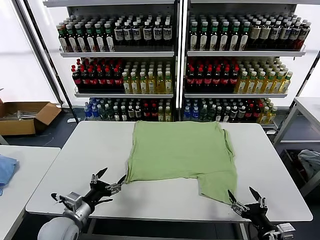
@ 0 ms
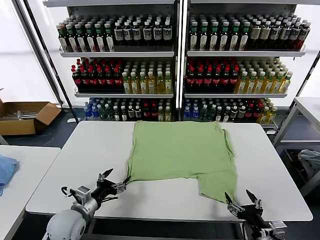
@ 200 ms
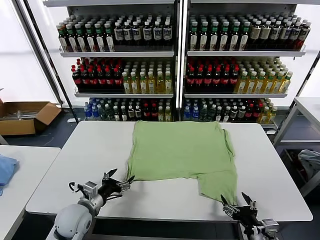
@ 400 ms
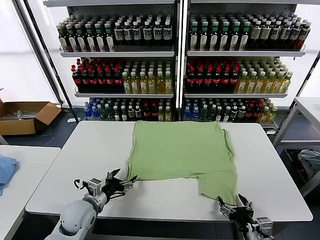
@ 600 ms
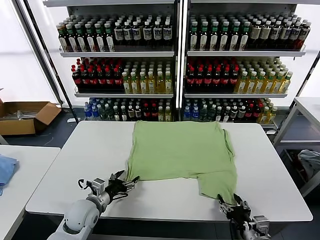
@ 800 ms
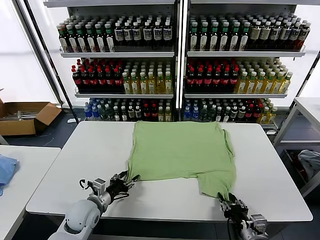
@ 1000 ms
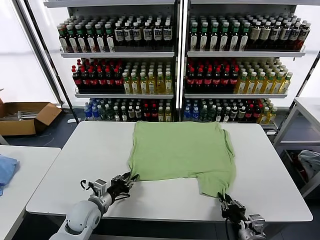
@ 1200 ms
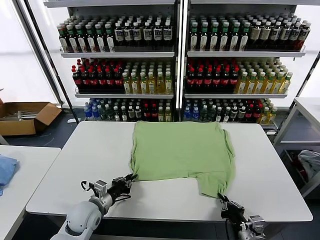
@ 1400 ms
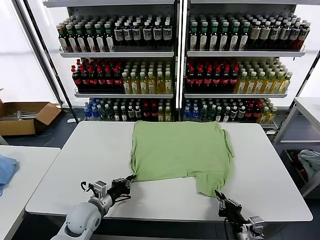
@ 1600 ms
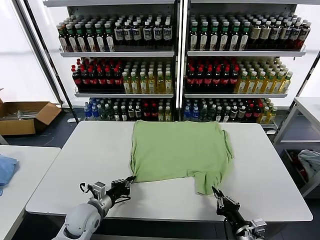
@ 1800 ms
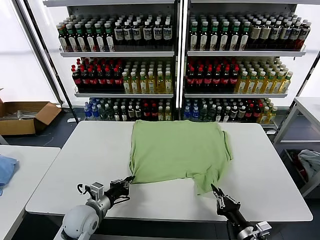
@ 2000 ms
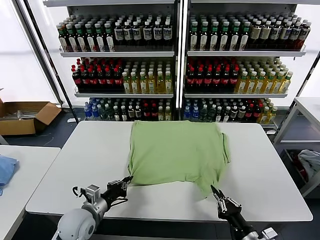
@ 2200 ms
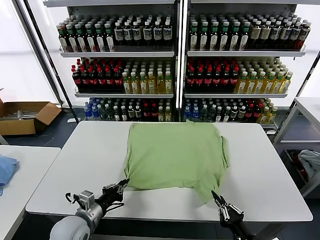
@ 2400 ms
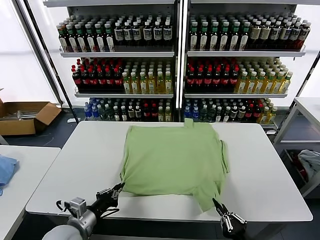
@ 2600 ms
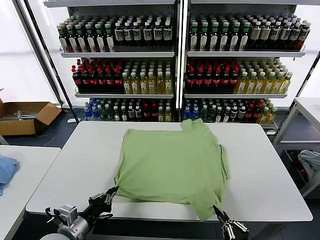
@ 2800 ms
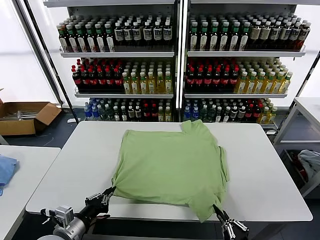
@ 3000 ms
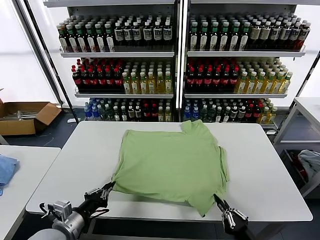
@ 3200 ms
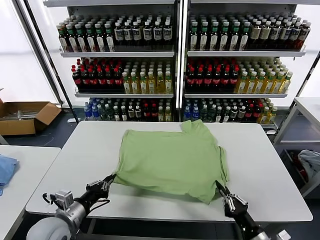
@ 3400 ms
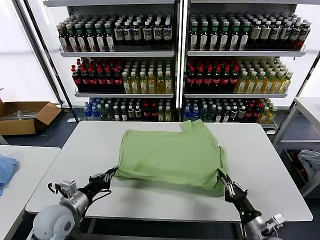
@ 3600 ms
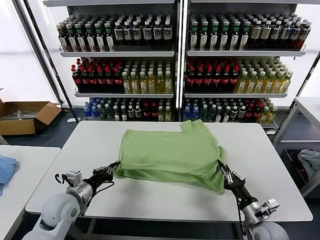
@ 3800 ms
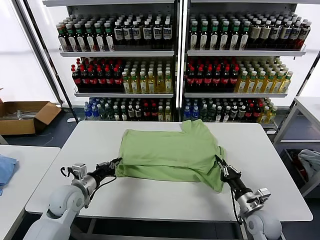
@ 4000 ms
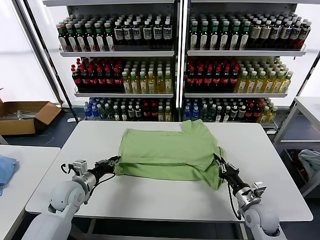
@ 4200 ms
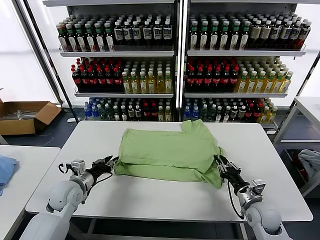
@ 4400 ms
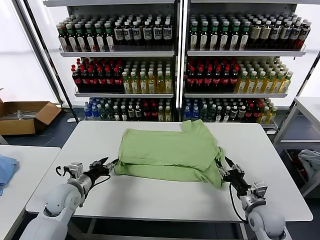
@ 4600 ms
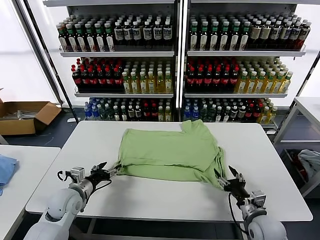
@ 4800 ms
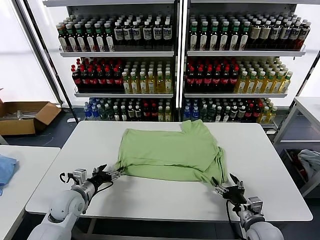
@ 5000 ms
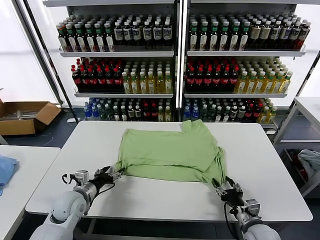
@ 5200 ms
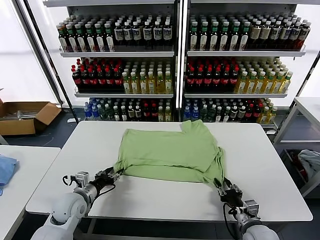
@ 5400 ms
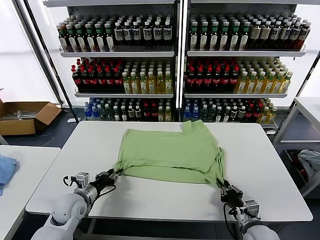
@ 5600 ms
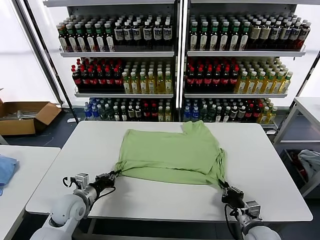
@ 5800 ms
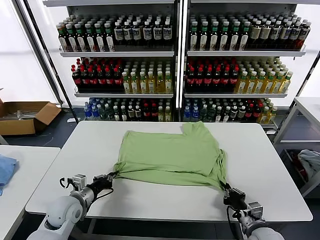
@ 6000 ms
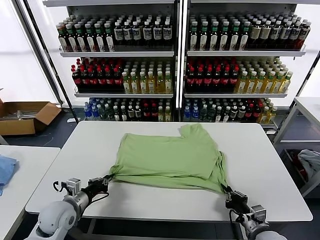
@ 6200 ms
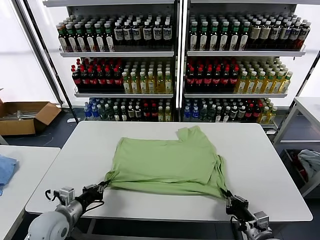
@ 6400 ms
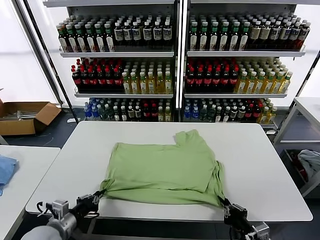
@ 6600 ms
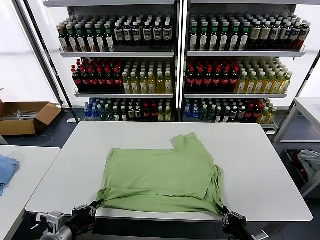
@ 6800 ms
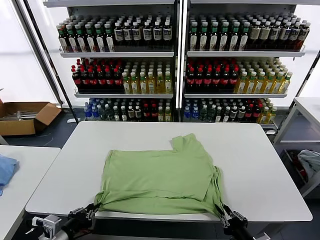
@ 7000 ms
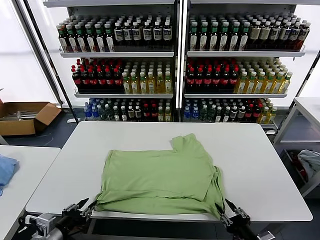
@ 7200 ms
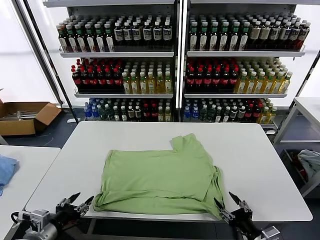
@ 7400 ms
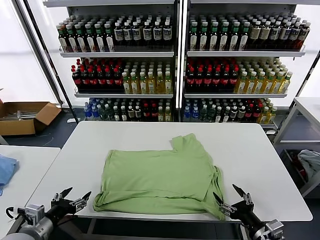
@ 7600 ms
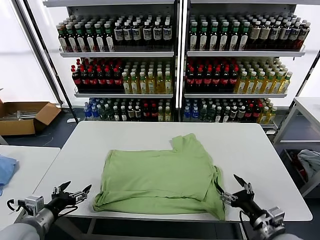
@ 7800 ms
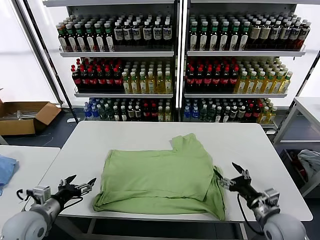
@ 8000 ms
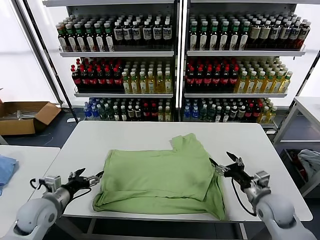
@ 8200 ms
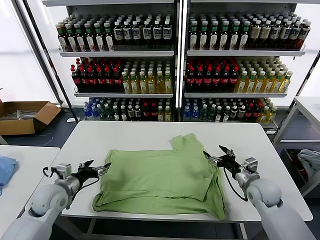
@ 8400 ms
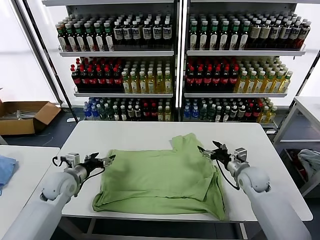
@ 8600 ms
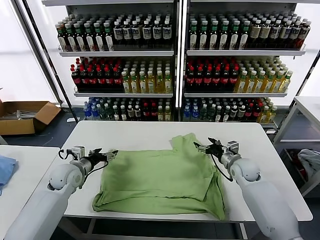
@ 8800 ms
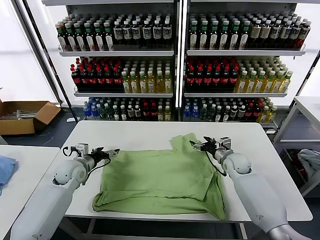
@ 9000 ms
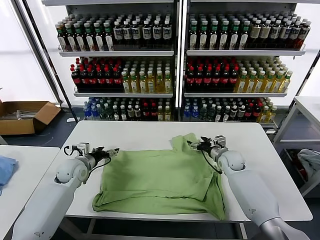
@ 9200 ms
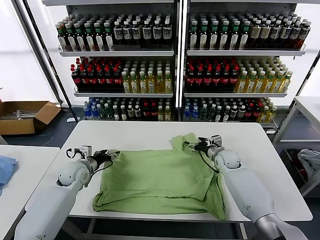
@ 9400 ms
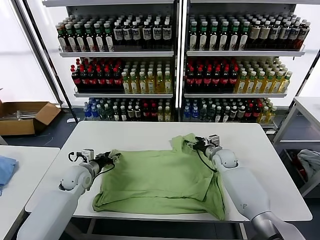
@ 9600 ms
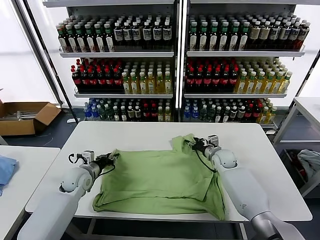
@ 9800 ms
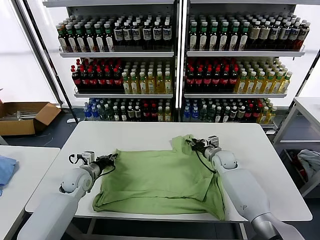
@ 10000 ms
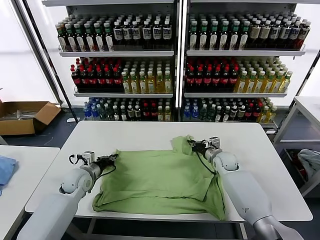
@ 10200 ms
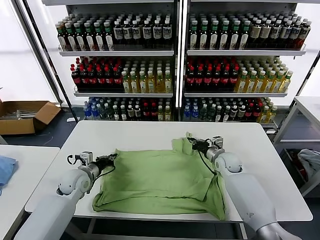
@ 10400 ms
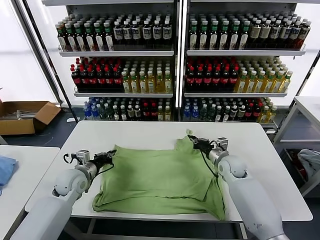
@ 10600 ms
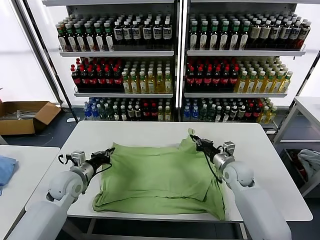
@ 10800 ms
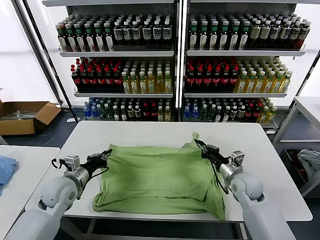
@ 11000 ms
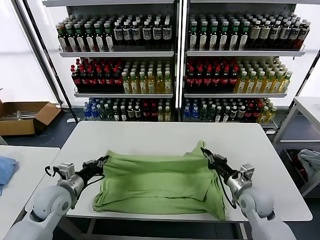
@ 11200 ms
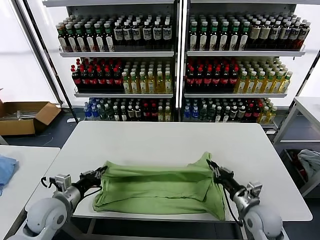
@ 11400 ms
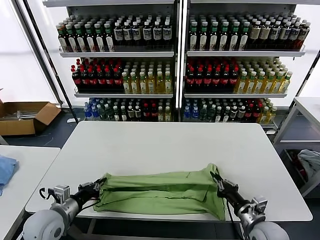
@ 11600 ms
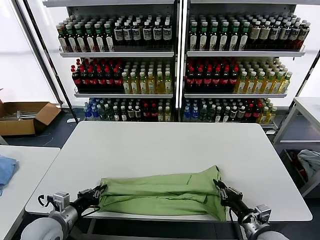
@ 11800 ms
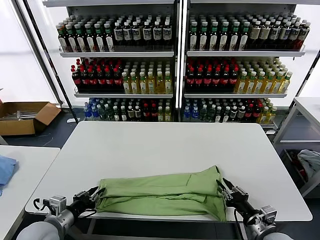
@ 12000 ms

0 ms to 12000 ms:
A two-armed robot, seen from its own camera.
Task of the whole recording: fold and organize the clothes.
Step, 0 ms to 1600 ms: use both grippers simultaneously to clamp the lower edge of the clothing fabric.
Step, 1800 ms to 4600 ms: use both grippers to drag the lower edge of the fabric forward and fold it over the upper edge.
Step, 4800 ms to 7200 ms: Drag the clothes downward with both gripper.
Step, 7400 ms to 10200 ms: use both grippers simultaneously to clamp the upper edge of the clothing fabric.
Step, 10400 ms to 12000 ms: use both grippers to drag the upper edge of the fabric backward and fold it over the lower edge.
1600 ms to 3000 ms: The left gripper travels backward and upward by some 15 cm; the right gripper is displaced backward by about 10 cm.
3000 ms to 4400 ms: The two grippers go approximately 20 cm forward. The right gripper opens.
4400 ms to 6000 ms: The right gripper is displaced backward by approximately 5 cm, and closes up; the left gripper opens and closes again.
6000 ms to 7600 ms: The left gripper goes some 15 cm backward and upward, and opens its fingers, while the right gripper goes roughly 5 cm upward, and opens up.
7600 ms to 9000 ms: The grippers both shift forward by approximately 30 cm.
9000 ms to 10400 ms: The left gripper closes its fingers. The right gripper closes.
10400 ms to 12000 ms: The right gripper moves backward, about 30 cm, and opens, while the left gripper heads backward, covering about 20 cm.

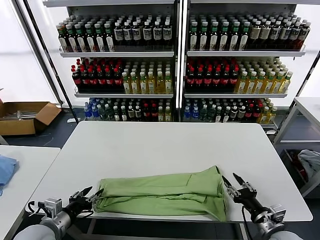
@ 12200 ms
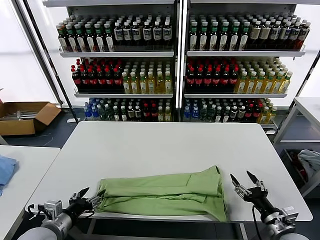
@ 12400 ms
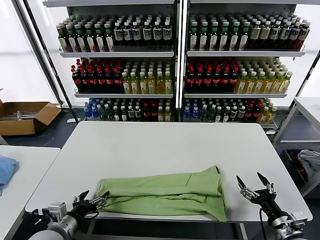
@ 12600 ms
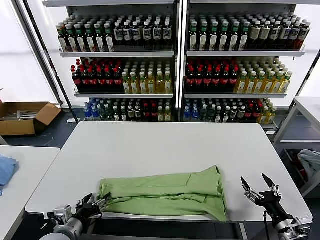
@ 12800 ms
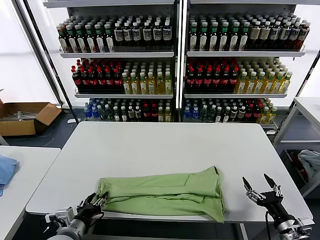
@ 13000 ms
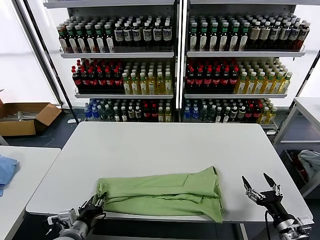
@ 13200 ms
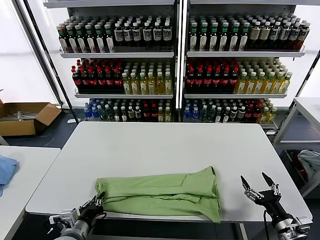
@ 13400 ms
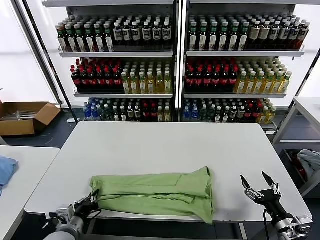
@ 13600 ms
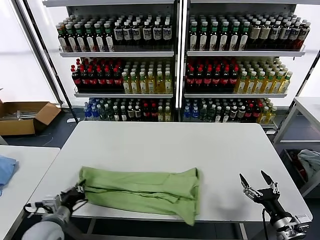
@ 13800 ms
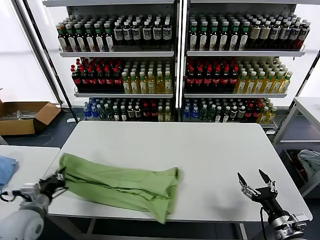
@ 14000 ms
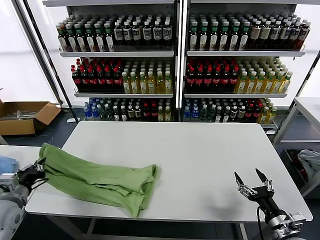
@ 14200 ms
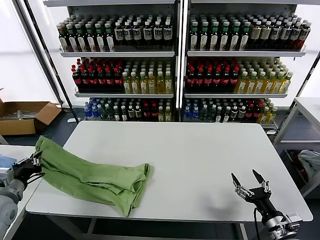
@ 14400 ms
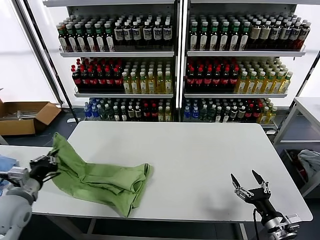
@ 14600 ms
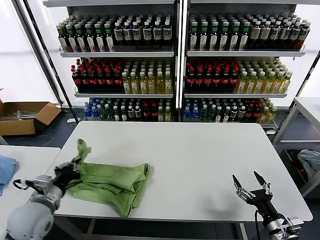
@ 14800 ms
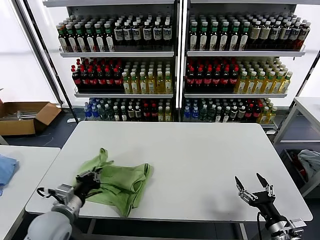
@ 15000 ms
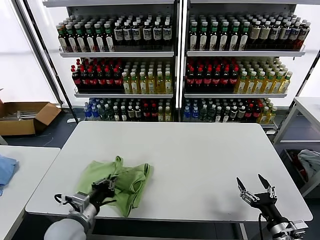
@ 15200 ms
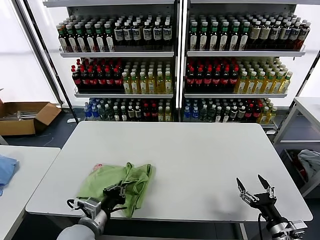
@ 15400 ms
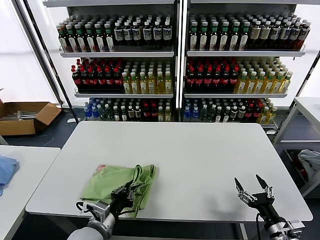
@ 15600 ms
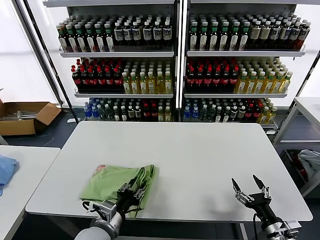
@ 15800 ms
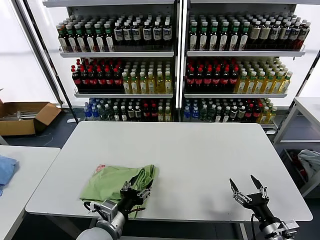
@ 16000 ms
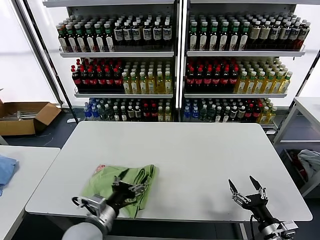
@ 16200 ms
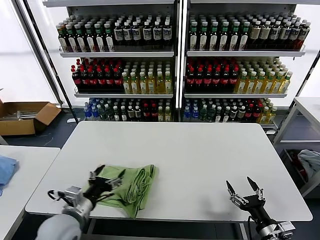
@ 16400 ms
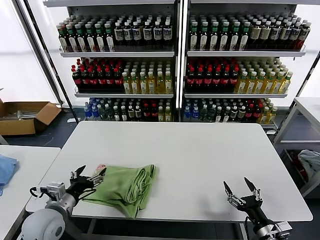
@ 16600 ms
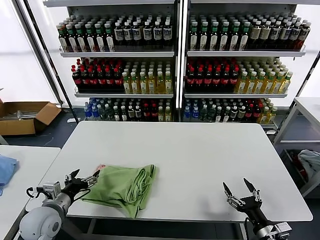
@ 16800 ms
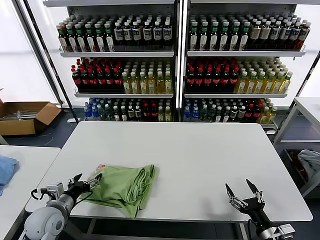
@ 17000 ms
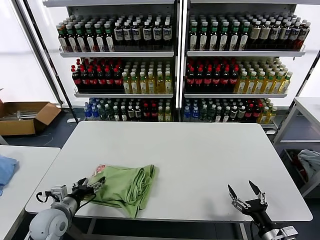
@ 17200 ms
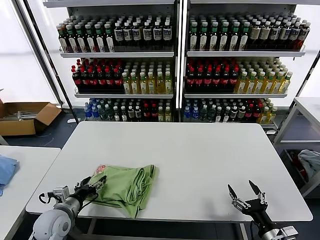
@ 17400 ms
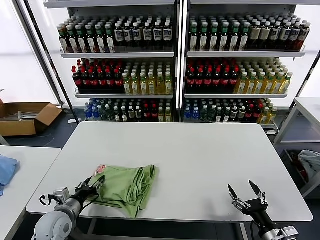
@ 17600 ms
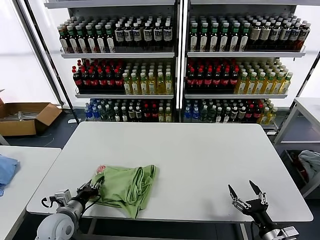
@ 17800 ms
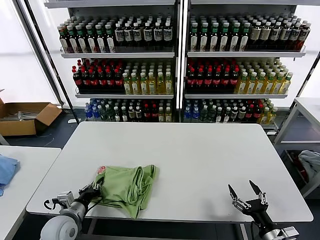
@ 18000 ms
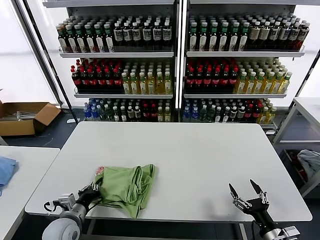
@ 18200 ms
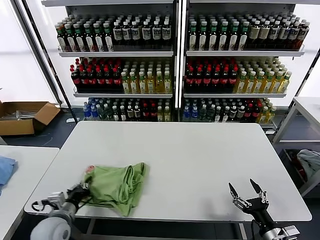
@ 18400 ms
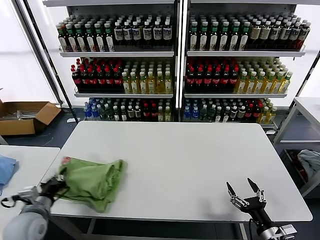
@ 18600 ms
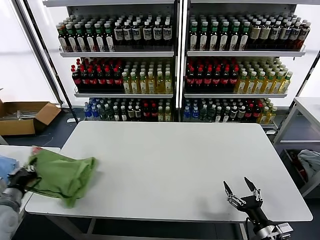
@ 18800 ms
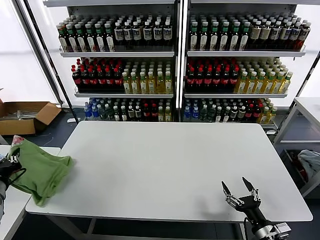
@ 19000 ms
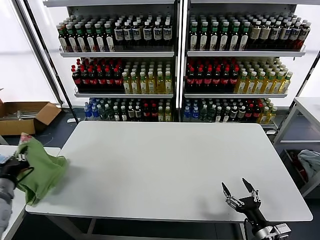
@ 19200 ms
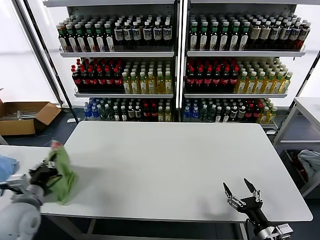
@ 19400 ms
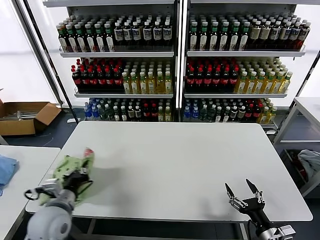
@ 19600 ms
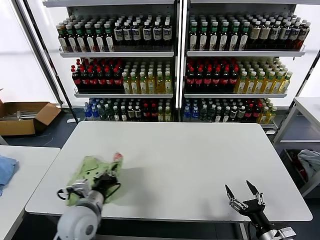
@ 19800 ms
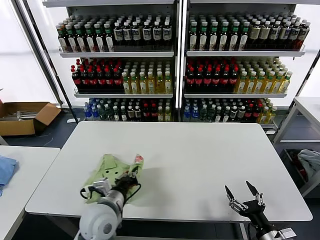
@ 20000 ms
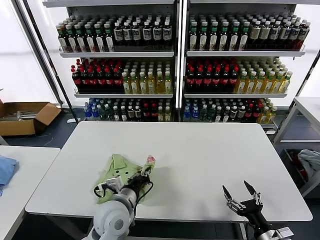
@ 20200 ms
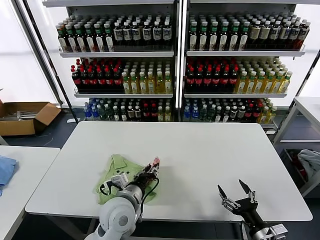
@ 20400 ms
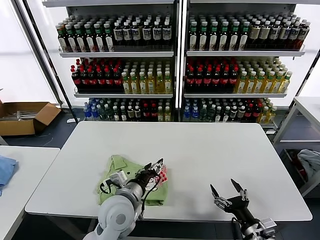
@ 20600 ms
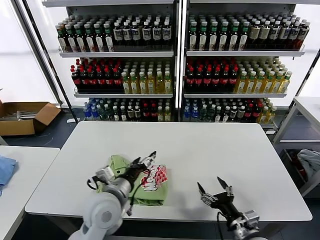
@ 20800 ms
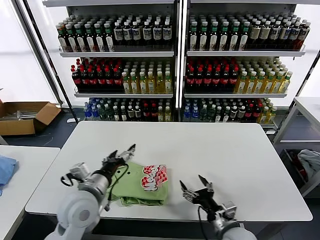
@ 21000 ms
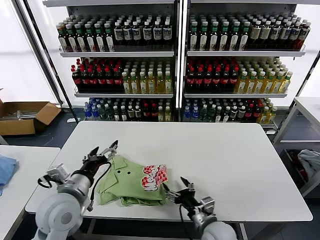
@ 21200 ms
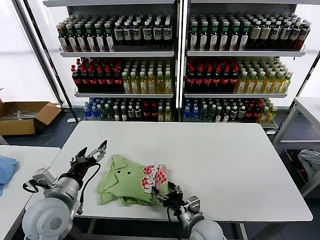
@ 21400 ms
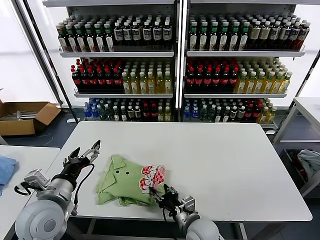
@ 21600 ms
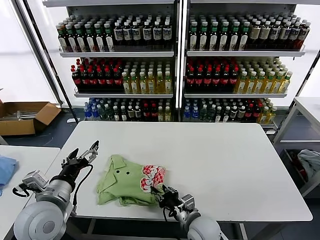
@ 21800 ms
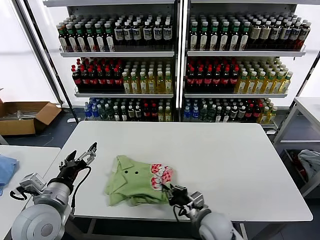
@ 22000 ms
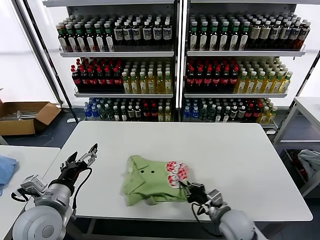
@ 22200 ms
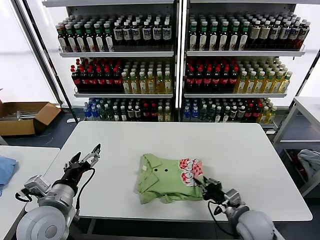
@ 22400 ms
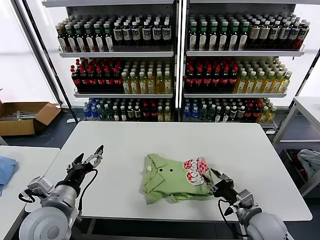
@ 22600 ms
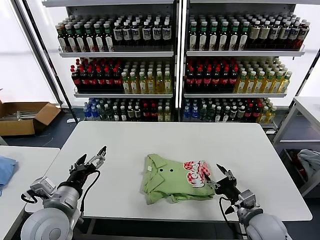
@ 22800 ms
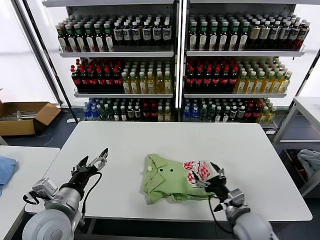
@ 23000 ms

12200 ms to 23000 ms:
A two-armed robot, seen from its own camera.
Task of the whole recording: fold and organize the clothes.
Step, 12200 ms to 13200 ms: use the left gripper to clamp the left edge of the fabric.
Step, 13600 ms to 15800 ms: use the left gripper to drag the left edge of the fabric to the left and folds it over the right edge.
Step, 16200 ms to 20400 ms: Flip the folded clothes over with left gripper.
12200 ms to 13800 ms: The left gripper closes its fingers, while the right gripper opens.
13800 ms to 15200 ms: The left gripper reaches approximately 15 cm to the left, then returns.
15200 ms to 16800 ms: The left gripper is displaced to the left by some 5 cm, and opens.
16800 ms to 18400 ms: The left gripper travels downward by approximately 5 cm, and closes.
18400 ms to 20000 ms: The left gripper travels to the right and upward by about 15 cm.
20000 ms to 21400 ms: The right gripper moves to the left and forward, roughly 25 cm; the left gripper is displaced to the left and upward by some 10 cm, and opens its fingers.
21400 ms to 23000 ms: The right gripper shifts some 15 cm to the right and upward, and closes, then opens again.
